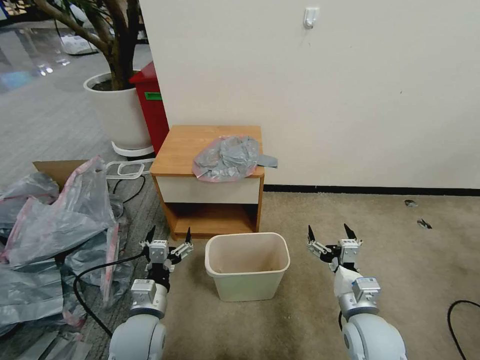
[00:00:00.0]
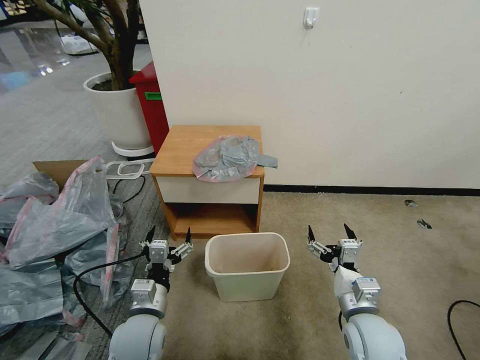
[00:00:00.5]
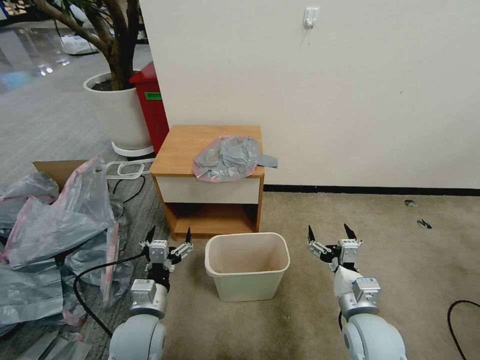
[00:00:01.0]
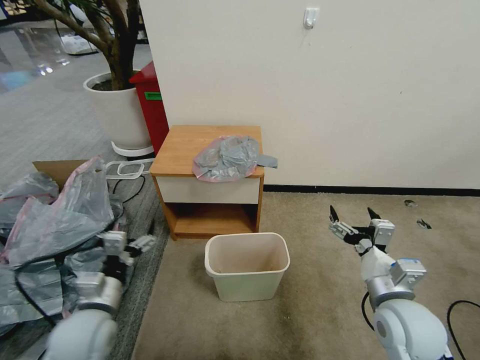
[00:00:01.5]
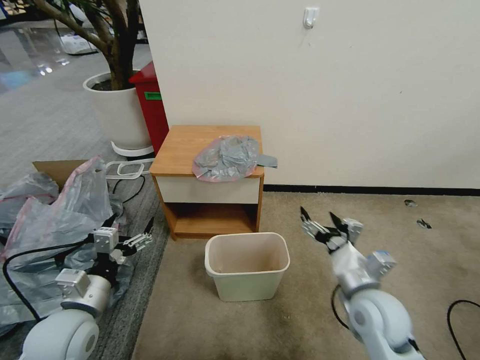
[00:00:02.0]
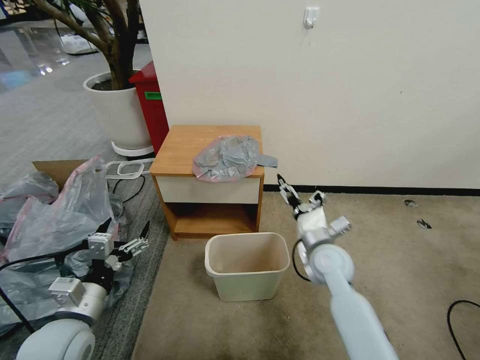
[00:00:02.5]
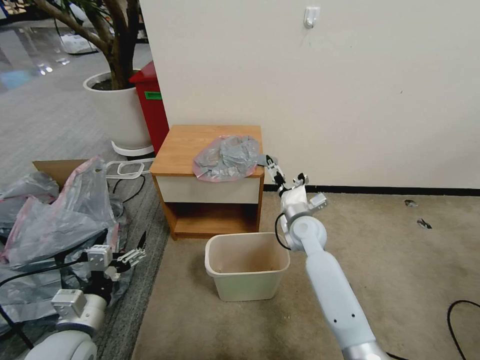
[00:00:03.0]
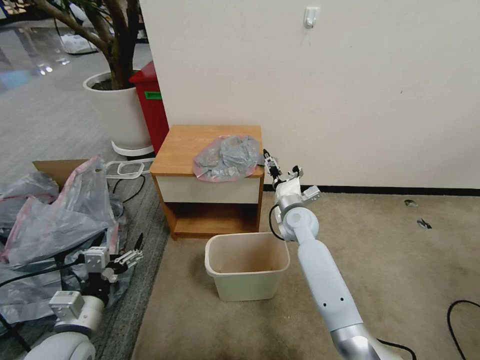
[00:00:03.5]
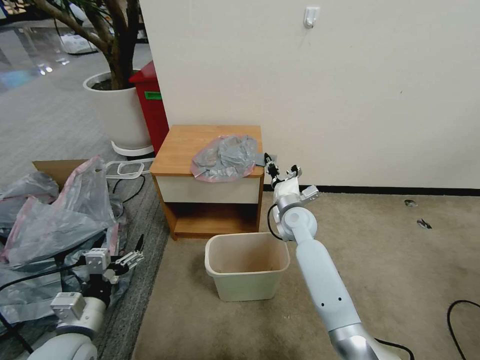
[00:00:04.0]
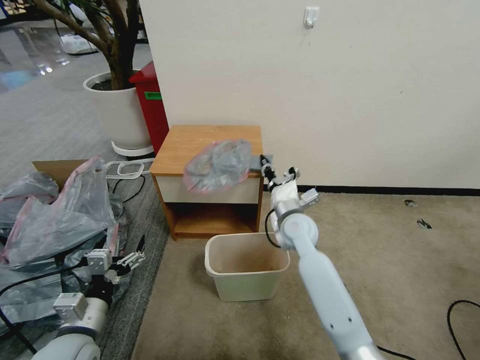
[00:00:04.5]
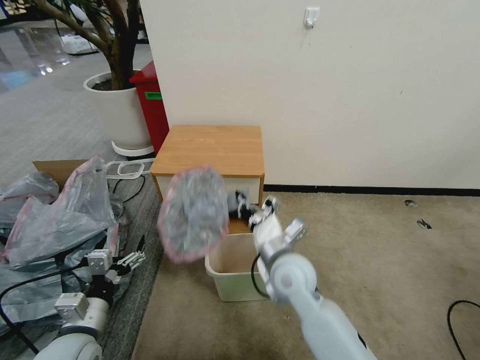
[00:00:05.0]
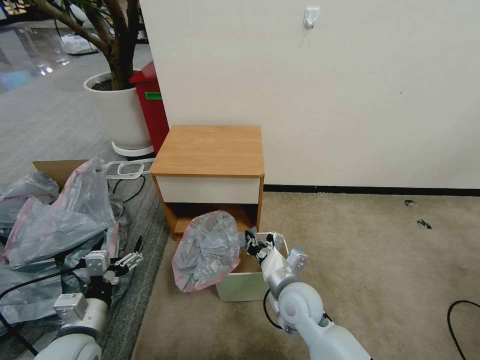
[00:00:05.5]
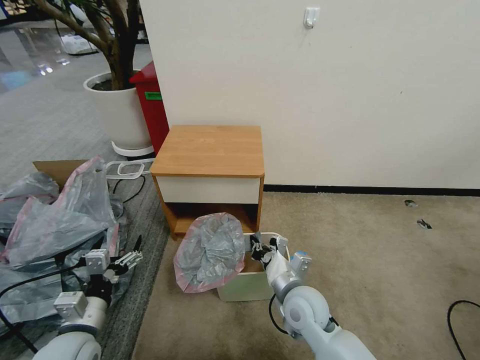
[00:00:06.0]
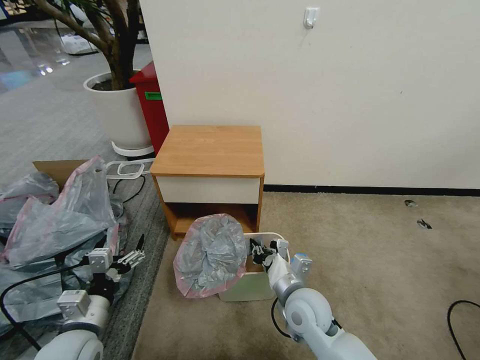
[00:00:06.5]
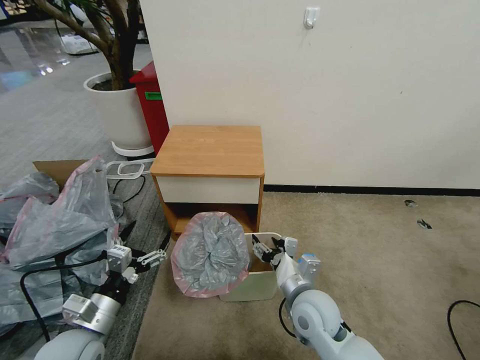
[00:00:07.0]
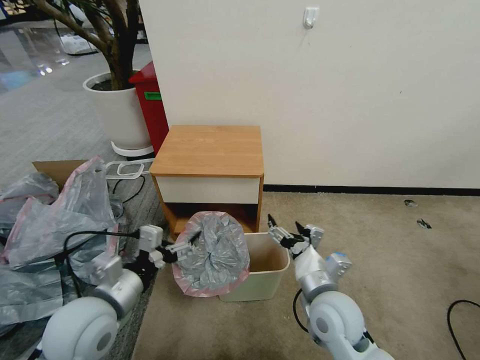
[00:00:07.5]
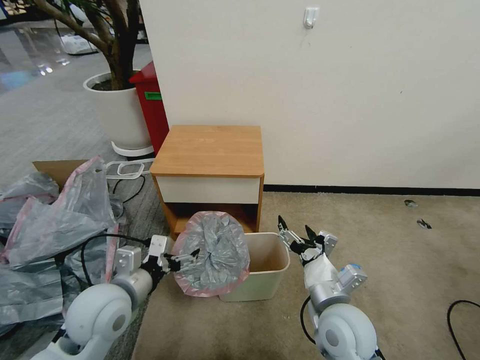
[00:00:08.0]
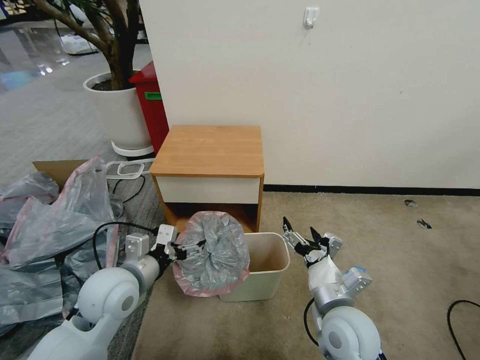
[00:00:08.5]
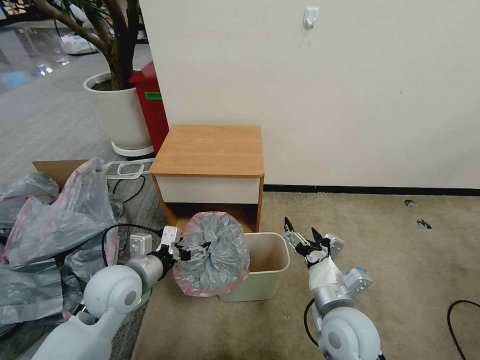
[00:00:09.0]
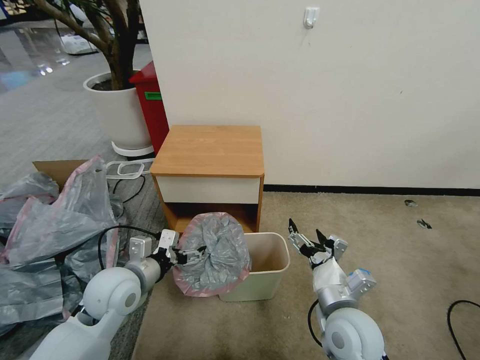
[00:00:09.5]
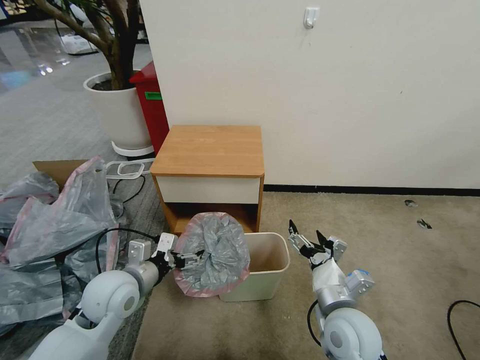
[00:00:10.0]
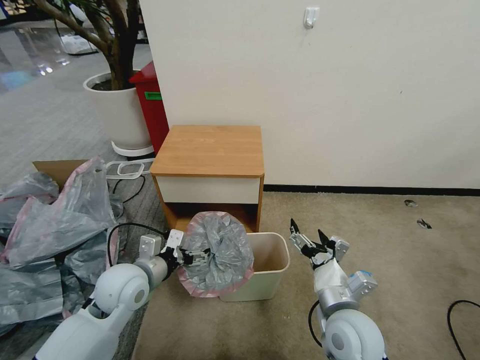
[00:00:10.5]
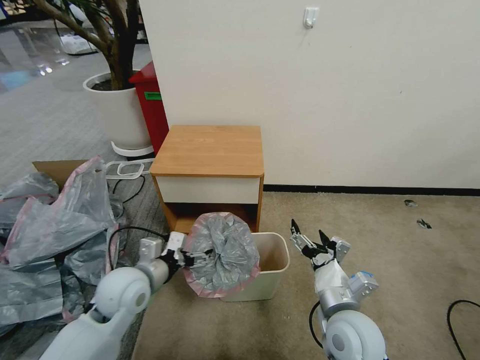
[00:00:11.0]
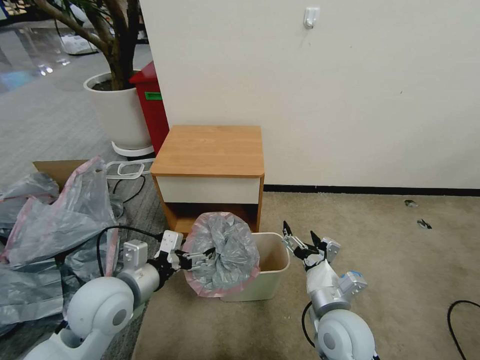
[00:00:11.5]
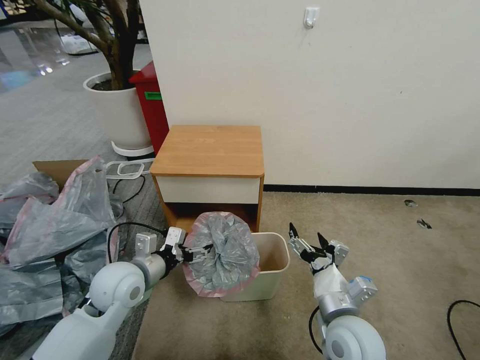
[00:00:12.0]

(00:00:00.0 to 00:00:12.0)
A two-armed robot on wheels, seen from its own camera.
Task of the whole recording: Pick up the garbage bag from the table and place it over the trash can.
00:00:02.0 - 00:00:04.0: The right gripper moves forward and to the left, roughly 25 cm, and closes up.
00:00:04.0 - 00:00:06.0: The right gripper shifts some 20 cm backward.
00:00:06.0 - 00:00:08.0: The right gripper is displaced upward, backward and to the right by approximately 10 cm, and opens its fingers, while the left gripper moves upward, to the right and forward, roughly 10 cm.
00:00:08.0 - 00:00:10.0: The grippers move only a little.
00:00:10.0 - 00:00:12.0: The grippers move only a little.

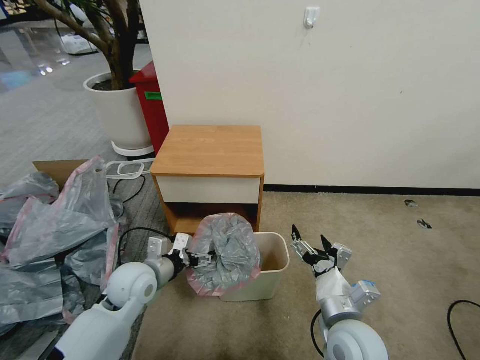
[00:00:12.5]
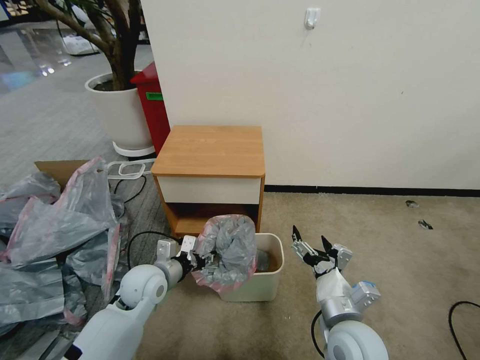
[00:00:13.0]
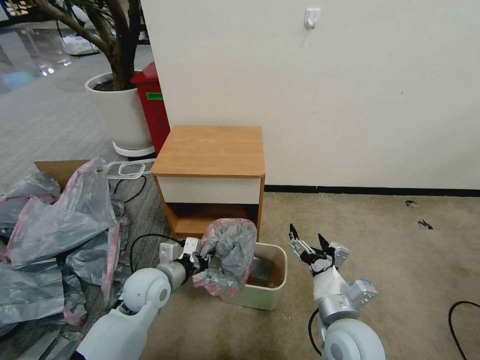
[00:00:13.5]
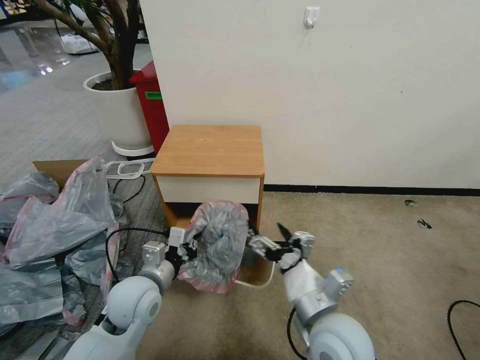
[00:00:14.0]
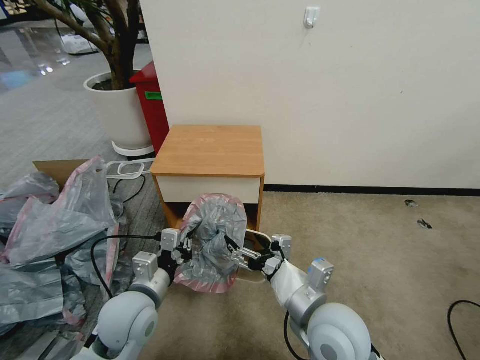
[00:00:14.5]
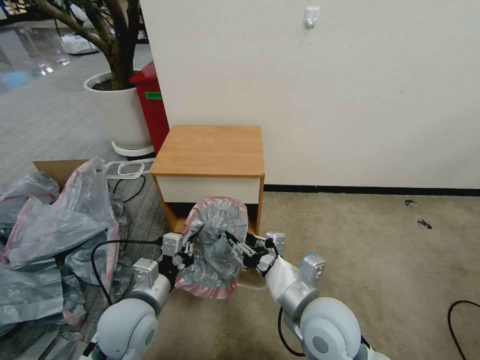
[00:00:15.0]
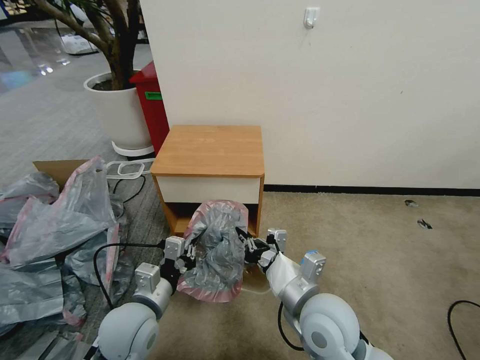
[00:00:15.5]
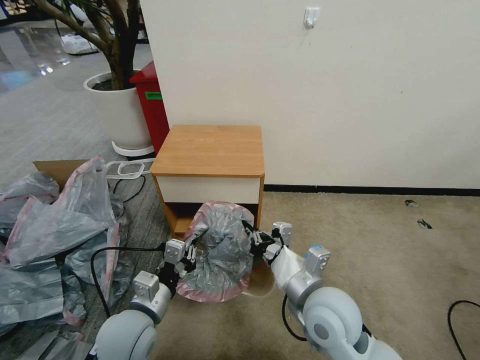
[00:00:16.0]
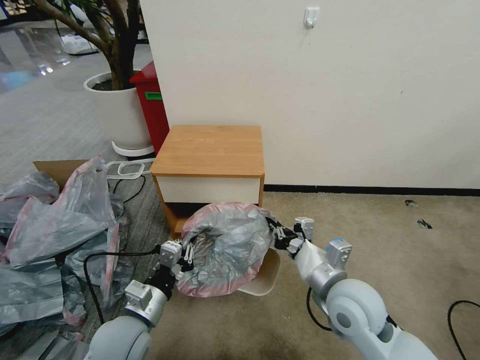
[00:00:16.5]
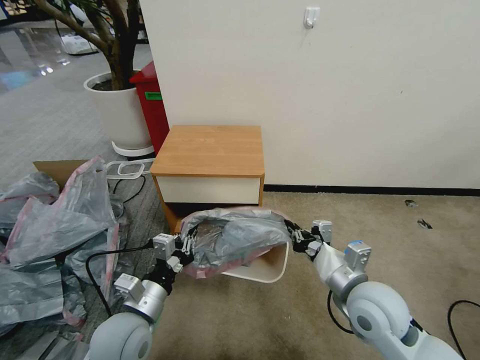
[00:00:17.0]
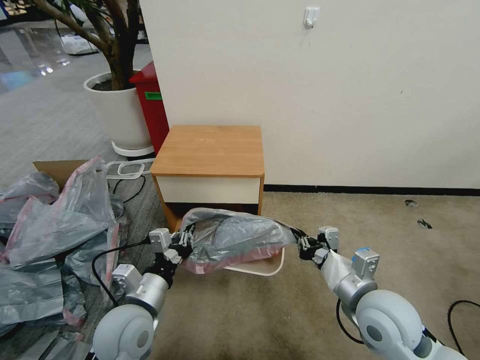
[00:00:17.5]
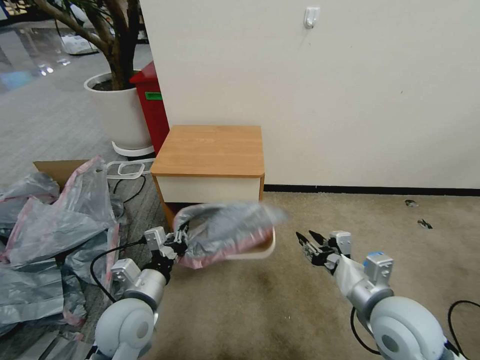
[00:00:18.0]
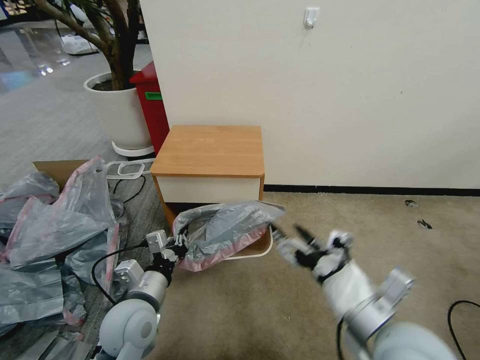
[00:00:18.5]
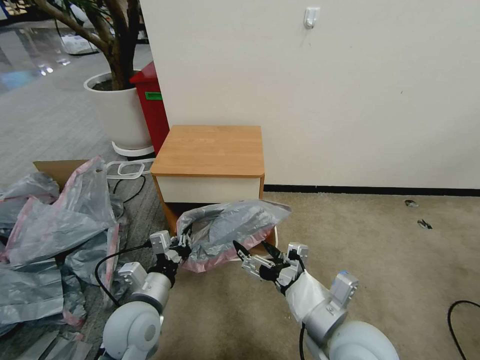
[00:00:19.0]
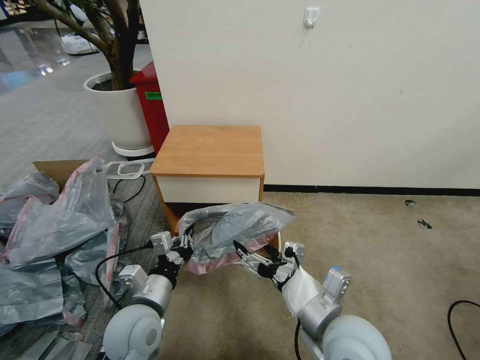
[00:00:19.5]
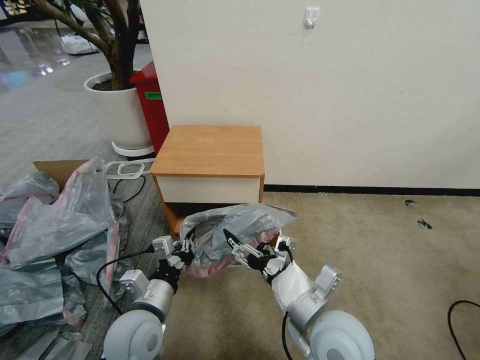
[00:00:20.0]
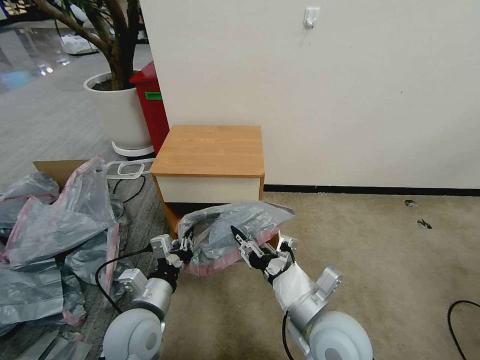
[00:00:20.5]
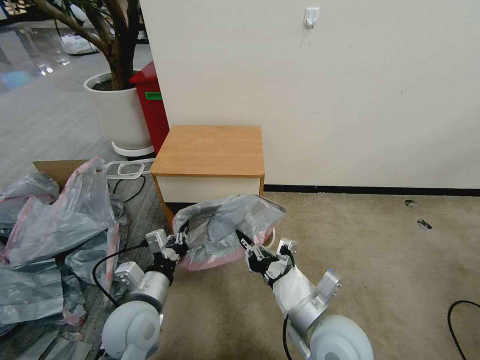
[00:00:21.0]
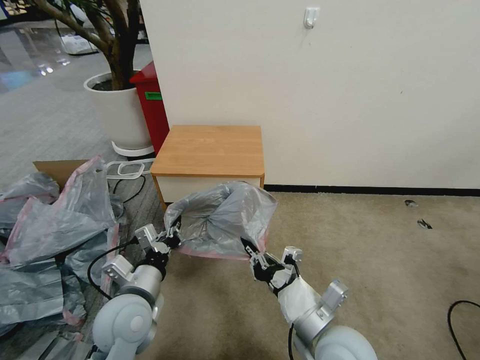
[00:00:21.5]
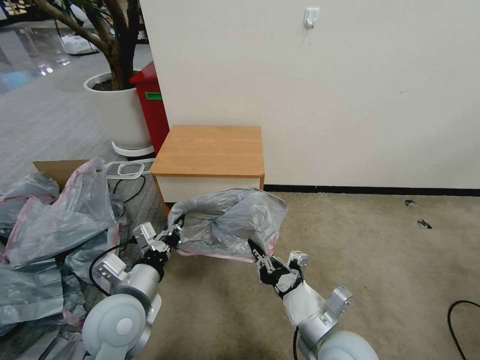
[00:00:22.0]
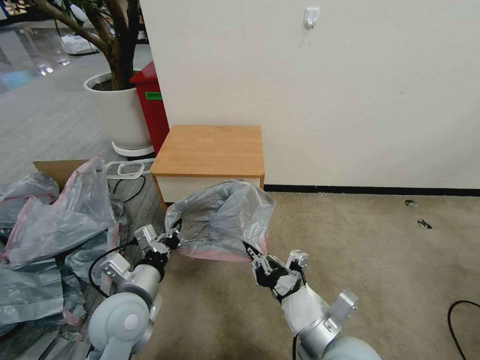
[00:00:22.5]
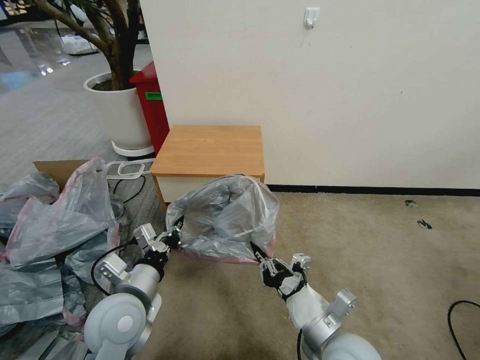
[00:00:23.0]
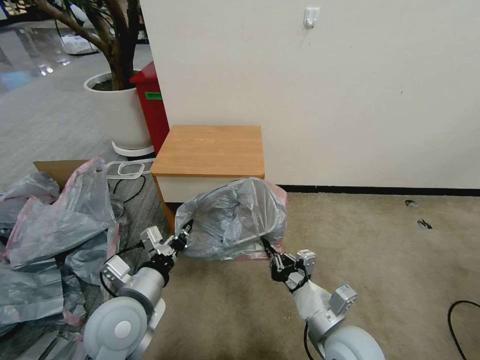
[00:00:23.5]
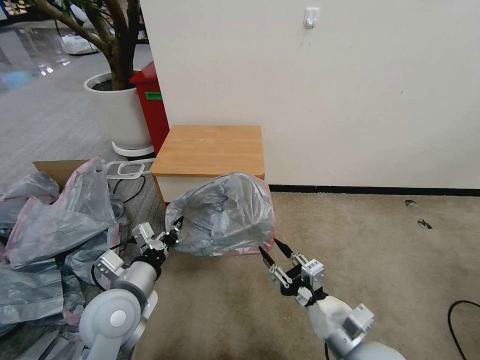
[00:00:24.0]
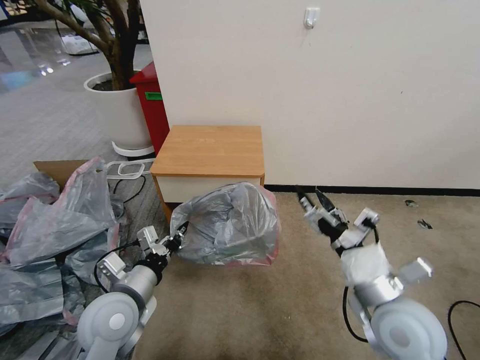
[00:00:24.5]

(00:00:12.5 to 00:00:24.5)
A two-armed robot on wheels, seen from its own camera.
Task of the whole recording: Pick up the garbage bag from the table and place it over the trash can.
00:00:12.5 - 00:00:14.5: The right gripper moves upward and to the left, some 10 cm, while the left gripper is displaced backward by roughly 5 cm, and closes.
00:00:14.5 - 00:00:16.5: The right gripper ends up some 5 cm from where it was, and closes its fingers.
00:00:16.5 - 00:00:18.5: The right gripper travels backward and upward by roughly 10 cm, and opens its fingers.
00:00:18.5 - 00:00:20.5: The right gripper goes some 10 cm downward and to the left, and closes its fingers.
00:00:20.5 - 00:00:22.5: The right gripper closes.
00:00:22.5 - 00:00:24.5: The right gripper shifts some 10 cm to the right and forward, and opens.

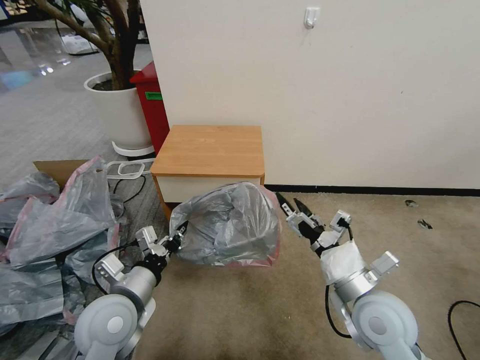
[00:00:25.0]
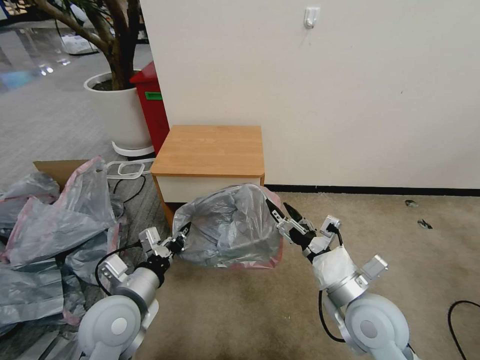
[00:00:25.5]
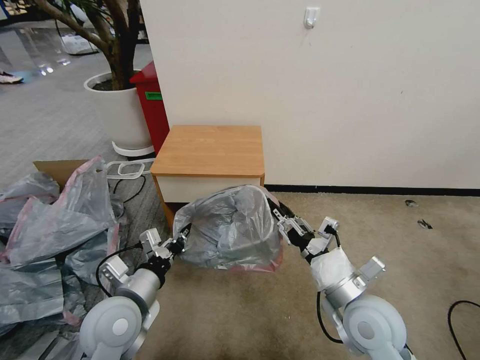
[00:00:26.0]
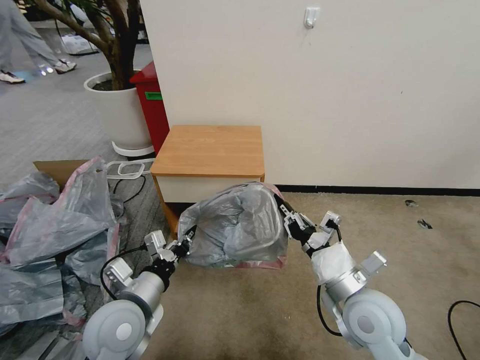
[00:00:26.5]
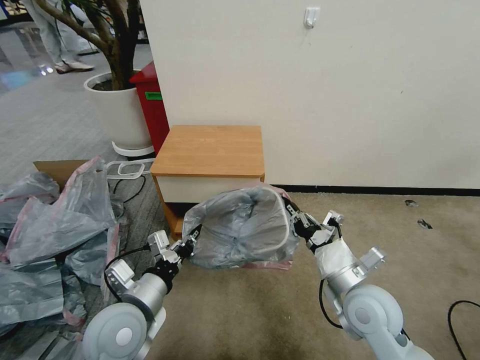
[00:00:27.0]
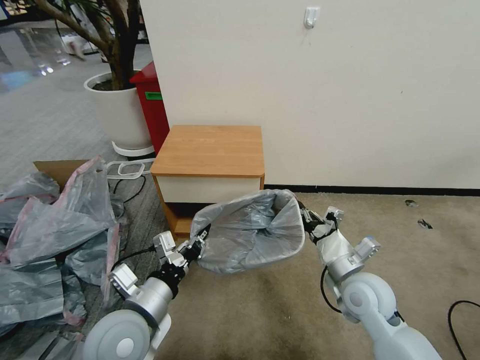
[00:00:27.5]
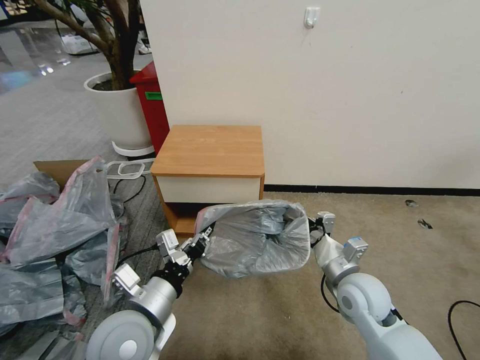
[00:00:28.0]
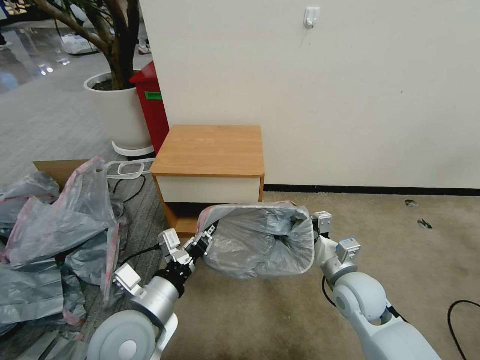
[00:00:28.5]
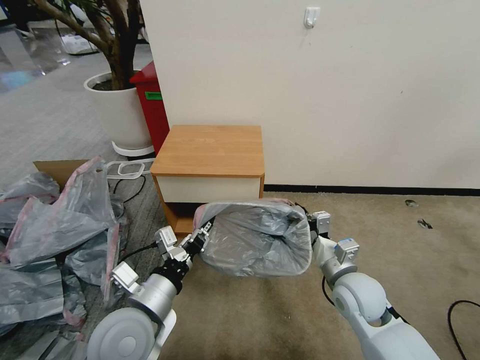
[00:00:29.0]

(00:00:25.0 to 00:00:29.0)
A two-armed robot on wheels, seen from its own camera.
Task of the whole recording: Pick up the garbage bag from the table and place it over the trash can.
00:00:25.0 - 00:00:27.0: The right gripper closes up.
00:00:27.0 - 00:00:29.0: The right gripper changes place by approximately 5 cm.
